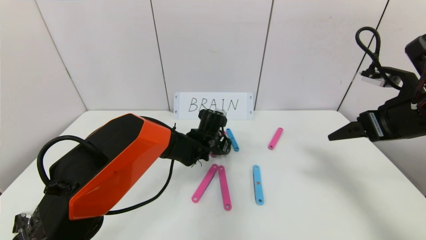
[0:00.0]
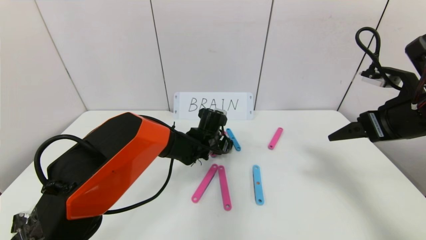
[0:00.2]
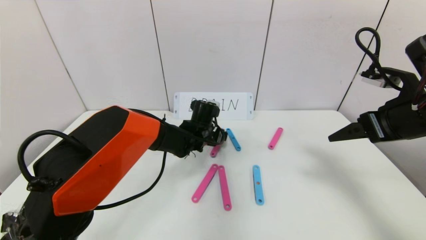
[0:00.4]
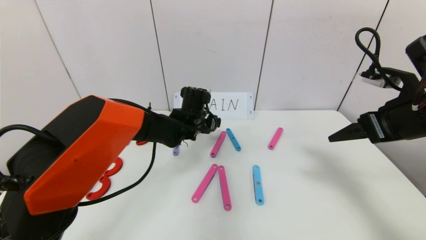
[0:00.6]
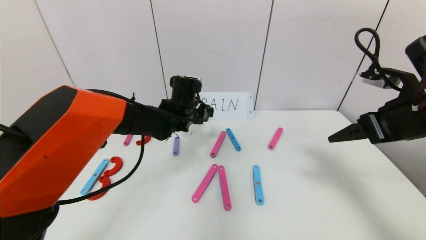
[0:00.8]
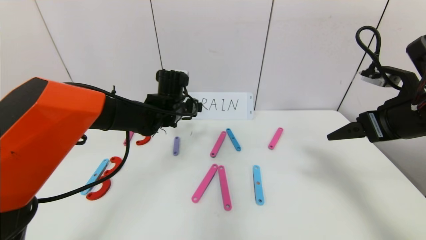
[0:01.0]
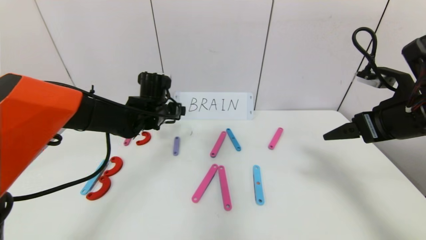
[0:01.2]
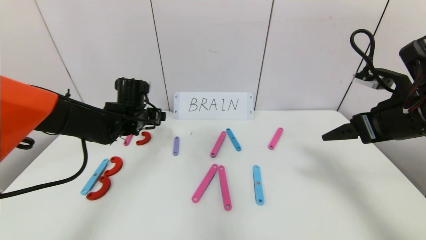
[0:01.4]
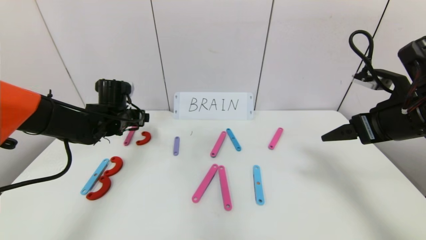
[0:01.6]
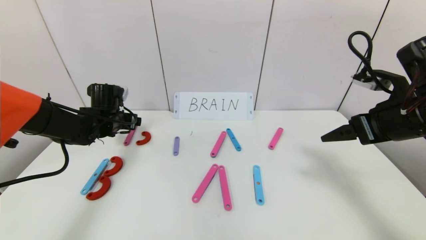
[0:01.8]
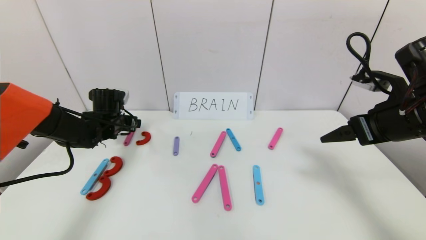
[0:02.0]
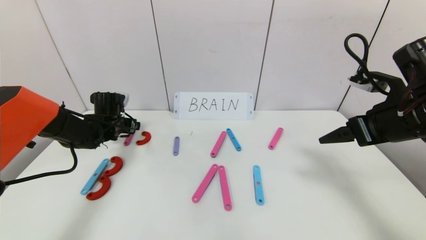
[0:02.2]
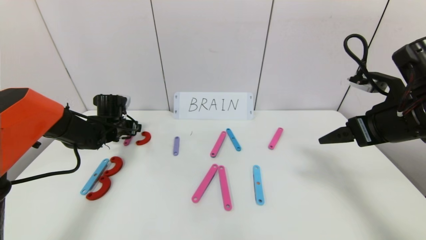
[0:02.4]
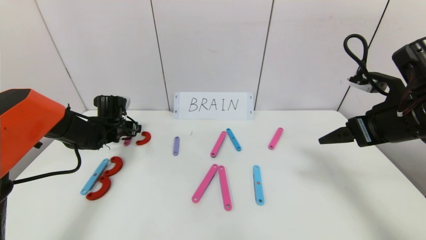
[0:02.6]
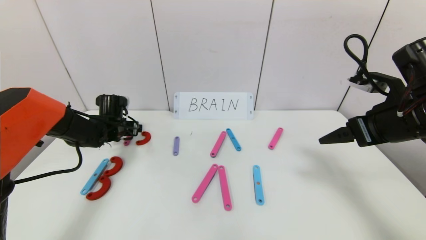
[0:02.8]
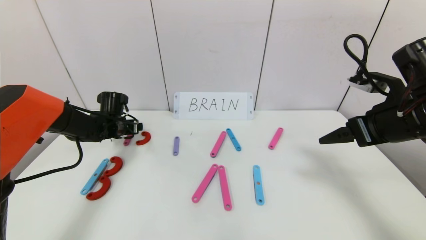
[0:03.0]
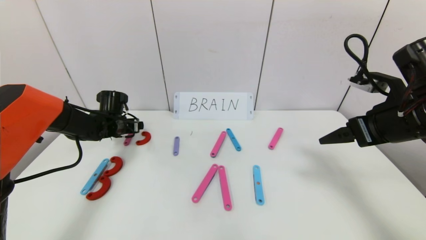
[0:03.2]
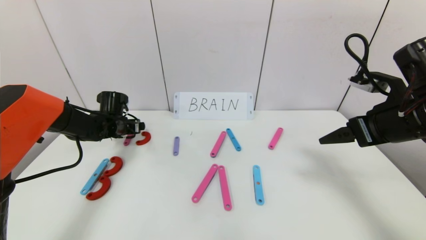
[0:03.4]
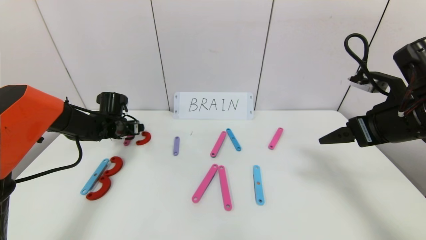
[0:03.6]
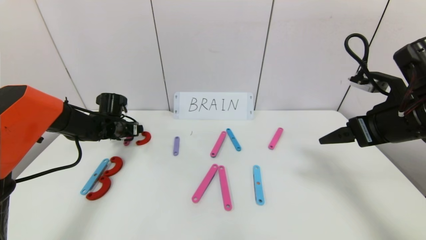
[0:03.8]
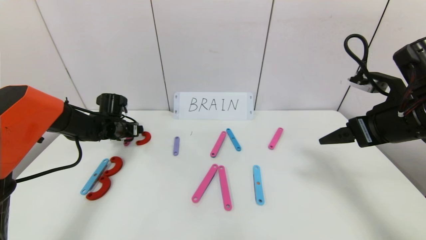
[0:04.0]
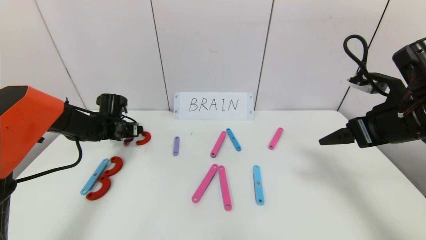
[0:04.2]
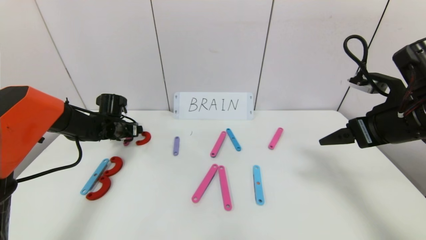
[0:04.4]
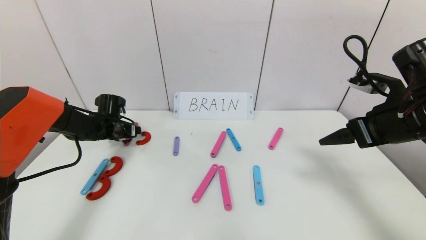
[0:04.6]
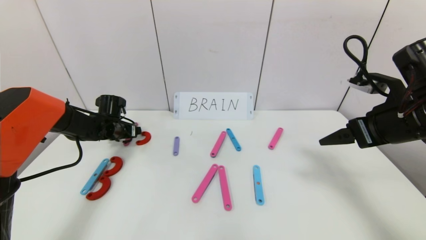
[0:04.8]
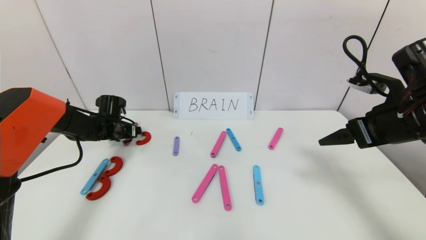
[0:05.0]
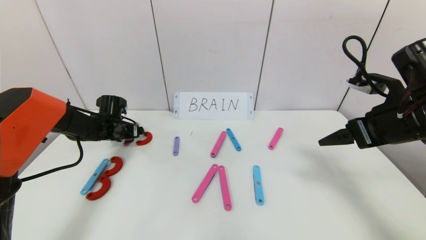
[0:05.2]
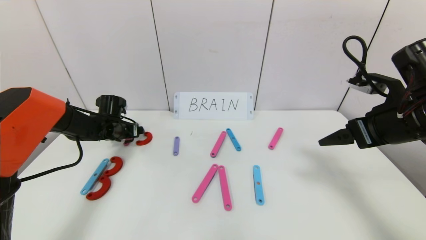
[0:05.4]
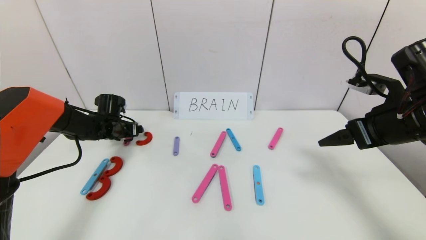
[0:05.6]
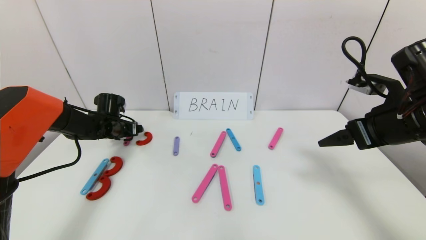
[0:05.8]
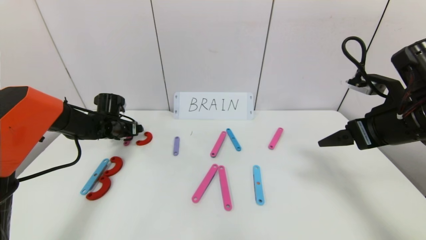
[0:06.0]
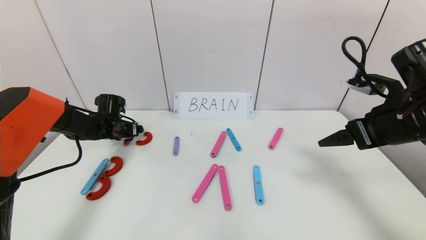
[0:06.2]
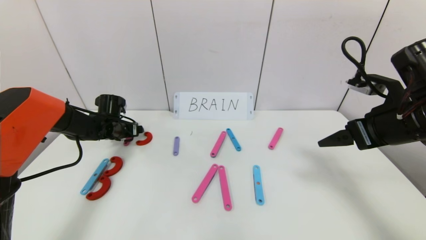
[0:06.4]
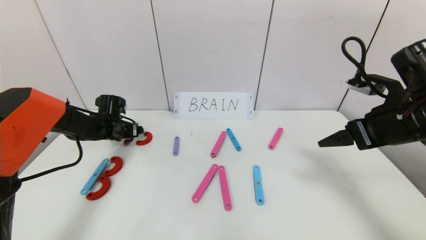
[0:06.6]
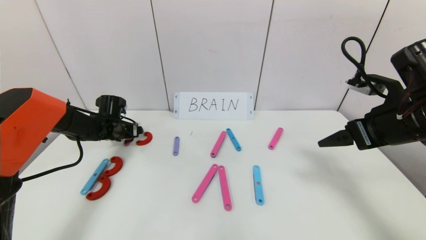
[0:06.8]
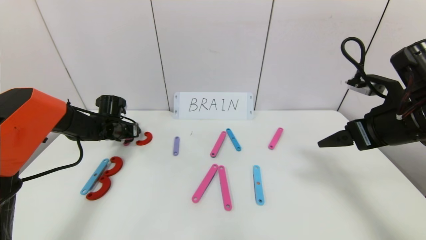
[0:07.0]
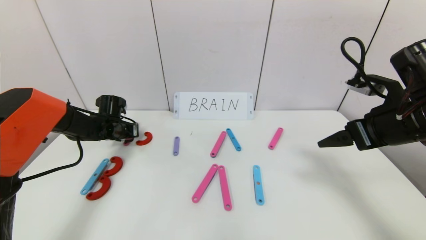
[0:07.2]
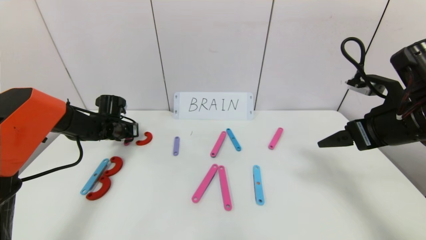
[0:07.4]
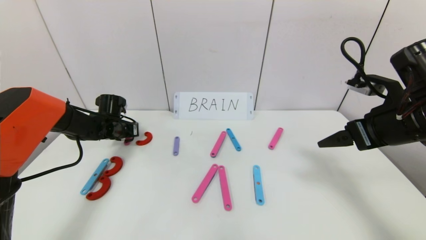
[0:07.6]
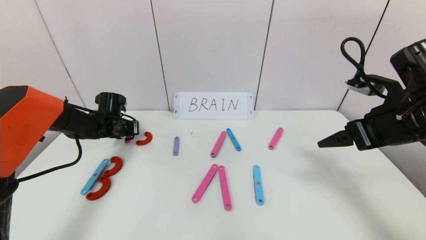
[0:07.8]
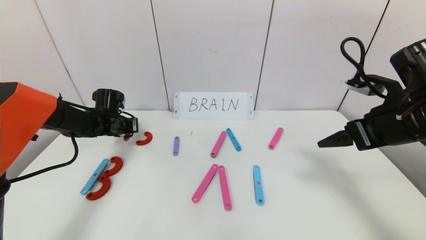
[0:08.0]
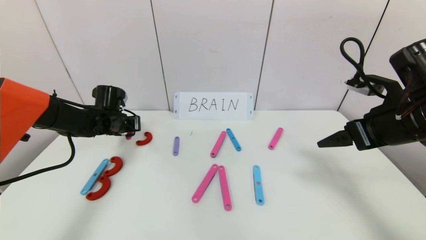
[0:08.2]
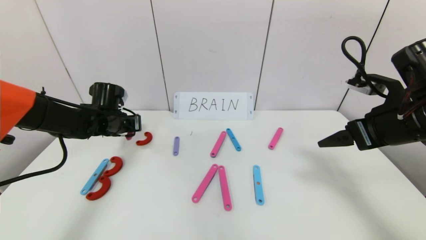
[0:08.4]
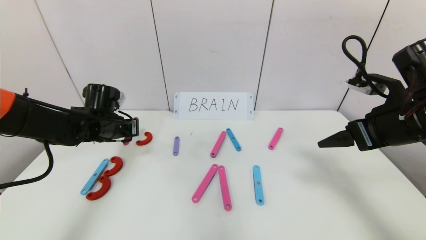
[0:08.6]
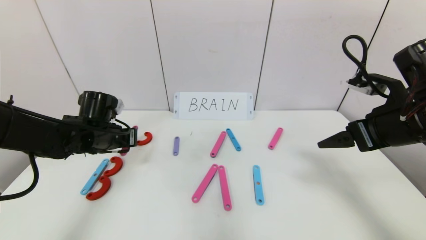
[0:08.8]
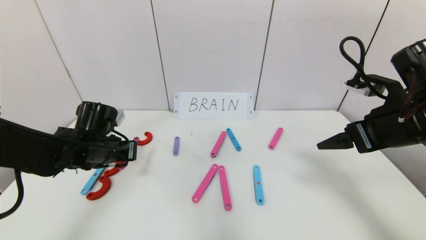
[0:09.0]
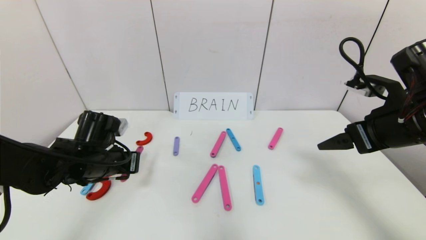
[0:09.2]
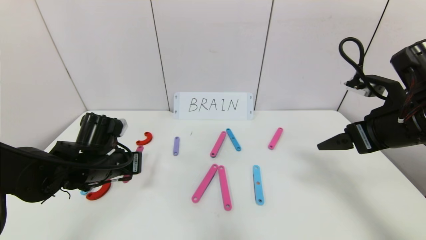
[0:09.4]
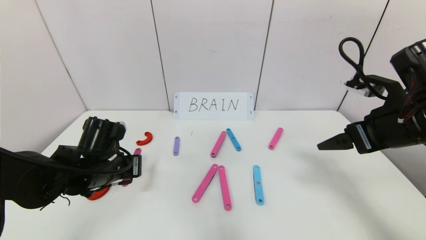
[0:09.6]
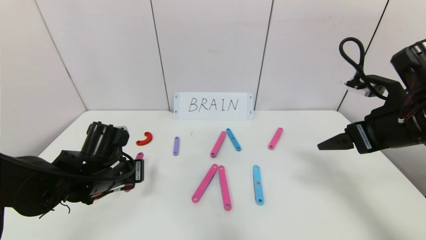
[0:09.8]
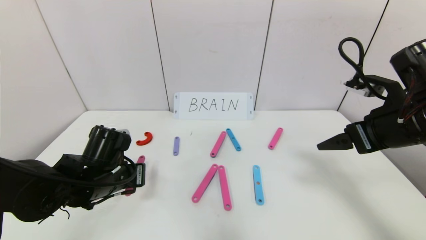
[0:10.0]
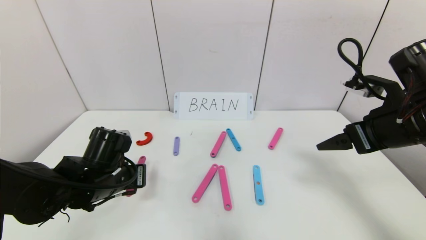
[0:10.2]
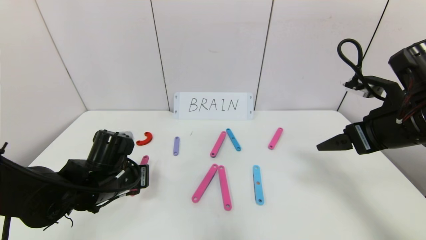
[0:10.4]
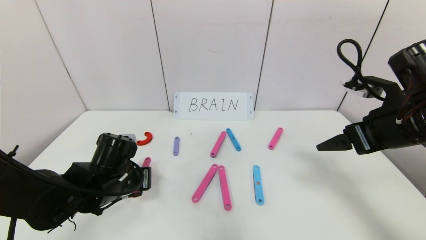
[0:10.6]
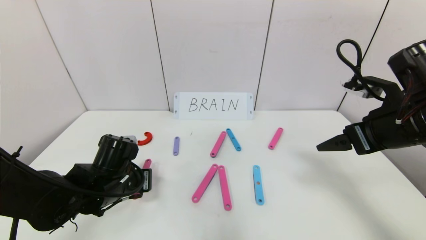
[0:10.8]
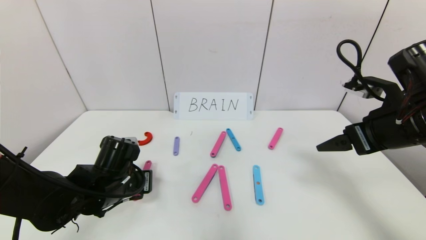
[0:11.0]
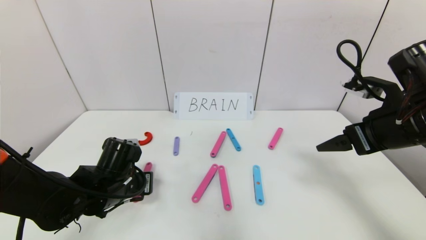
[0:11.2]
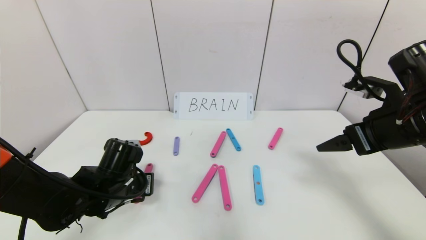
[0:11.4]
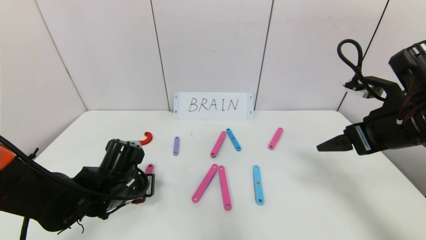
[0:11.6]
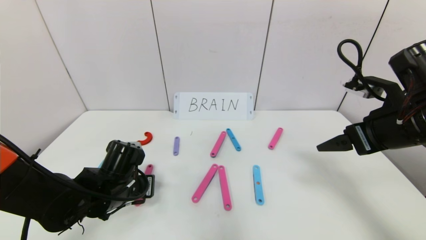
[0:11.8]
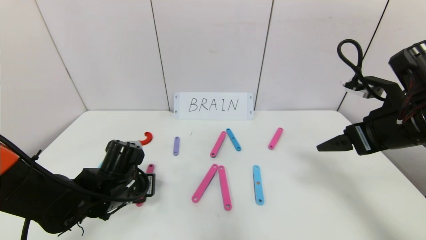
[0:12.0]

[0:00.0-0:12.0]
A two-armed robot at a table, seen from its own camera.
Task of the whole recording: rearrange the word baai as brain.
0:00.0 to 0:01.6: The left gripper is displaced to the left by some 25 cm.
0:01.6 to 0:03.0: The left gripper travels downward by approximately 5 cm.
0:03.0 to 0:04.4: The two grippers keep their place.
0:04.4 to 0:06.0: Both grippers stay about where they are.
0:06.0 to 0:07.6: The left gripper closes up.
0:07.6 to 0:09.0: The left gripper goes about 15 cm backward.
0:09.0 to 0:10.4: The left gripper is displaced backward by approximately 5 cm.
0:10.4 to 0:12.0: The grippers move only a little.

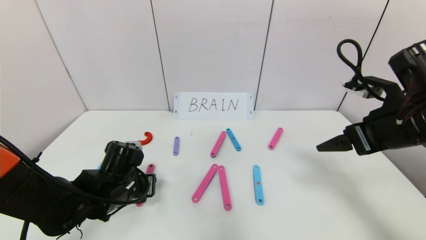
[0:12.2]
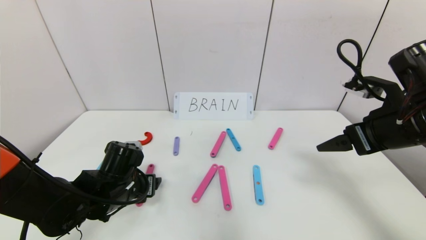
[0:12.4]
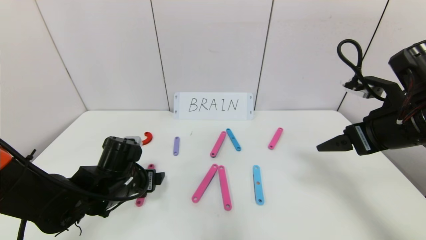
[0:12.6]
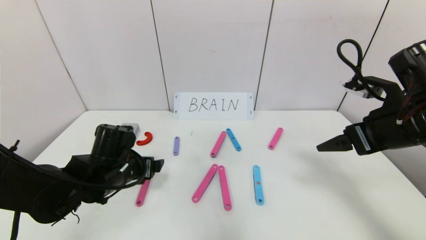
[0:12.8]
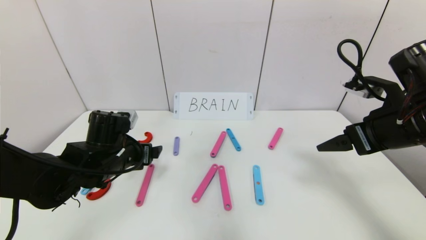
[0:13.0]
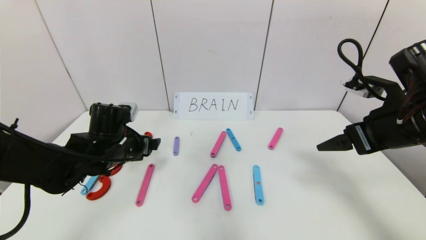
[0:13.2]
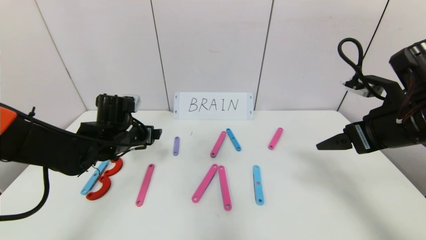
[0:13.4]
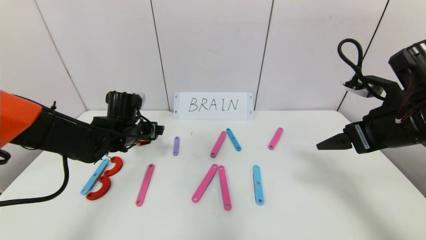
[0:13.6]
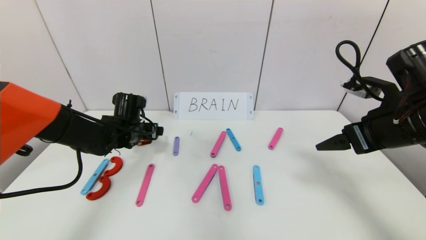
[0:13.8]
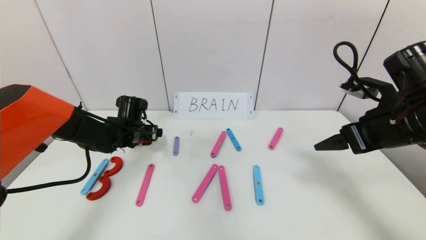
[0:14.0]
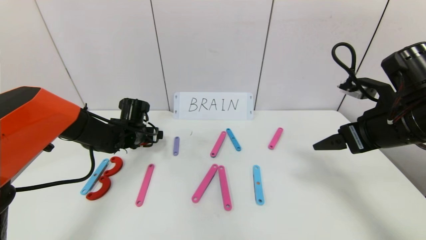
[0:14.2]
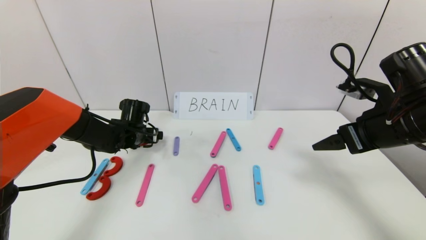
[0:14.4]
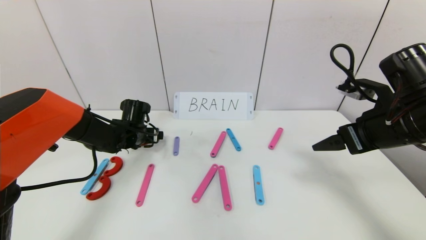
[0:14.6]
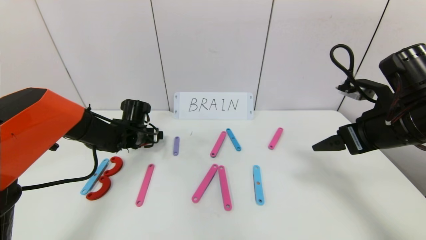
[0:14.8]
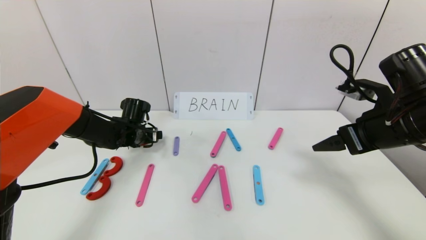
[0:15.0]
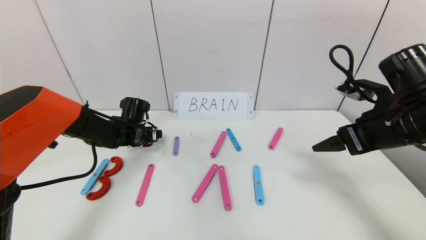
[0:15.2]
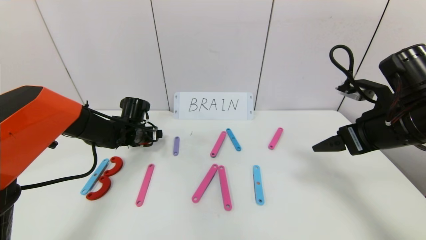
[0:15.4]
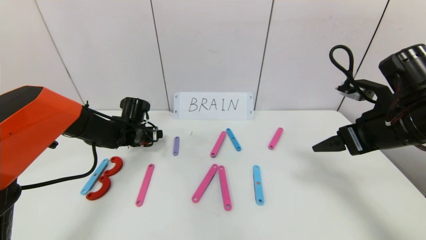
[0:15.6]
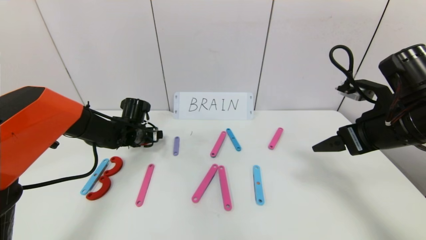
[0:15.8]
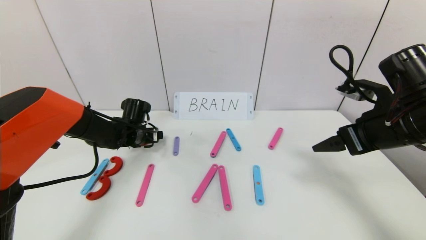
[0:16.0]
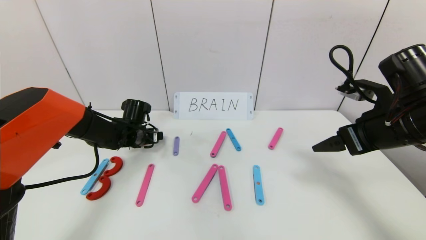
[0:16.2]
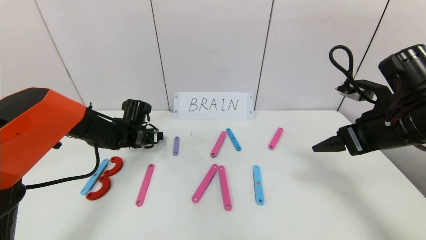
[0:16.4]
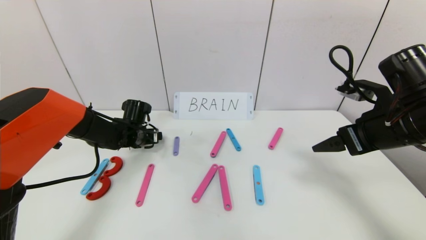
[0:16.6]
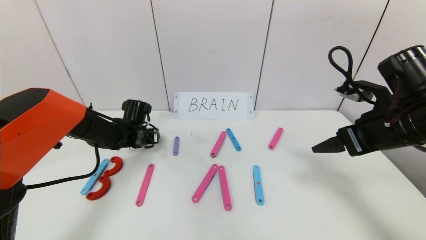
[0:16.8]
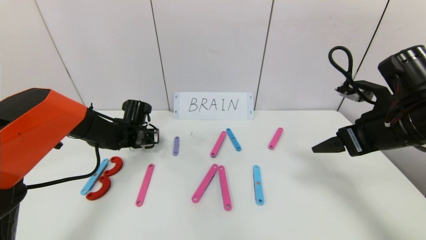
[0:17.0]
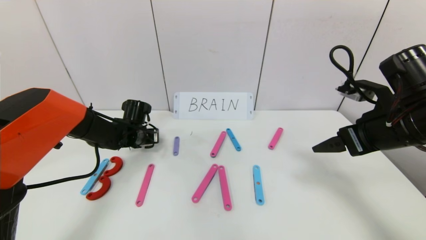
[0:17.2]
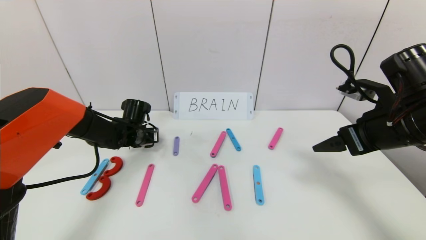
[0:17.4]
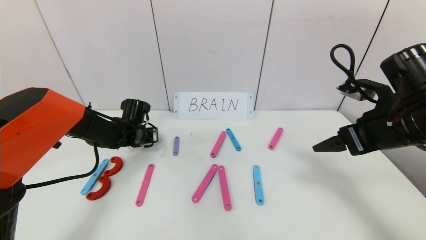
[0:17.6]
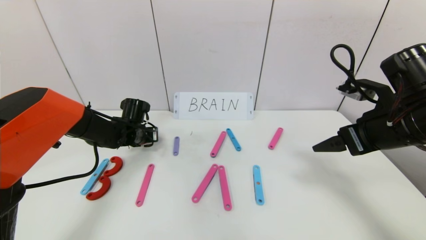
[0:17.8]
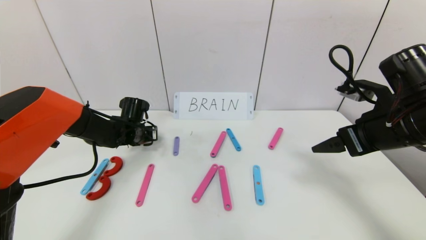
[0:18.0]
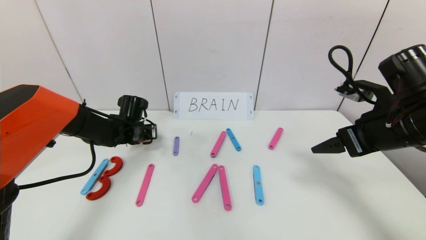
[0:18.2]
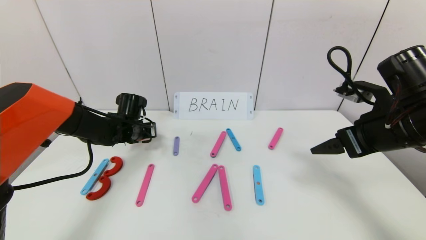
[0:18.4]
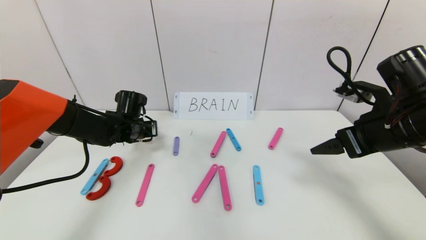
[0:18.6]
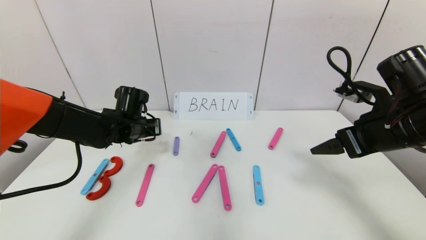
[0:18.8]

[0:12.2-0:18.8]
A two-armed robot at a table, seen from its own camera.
Task of the whole recording: rearrange the word baai as brain.
0:12.2 to 0:13.8: The left gripper travels forward by roughly 15 cm, and opens.
0:13.8 to 0:15.4: The grippers move only a little.
0:15.4 to 0:17.2: The left gripper closes its fingers.
0:17.2 to 0:18.8: The left gripper shifts about 5 cm upward.
